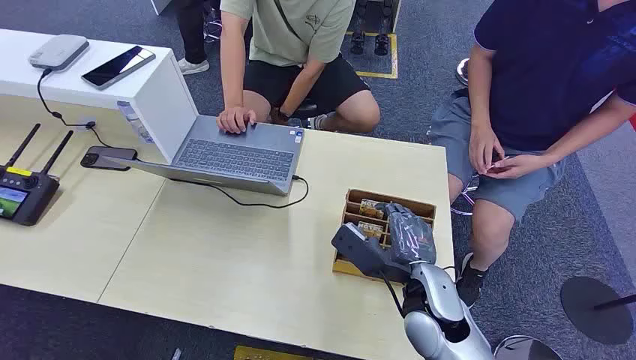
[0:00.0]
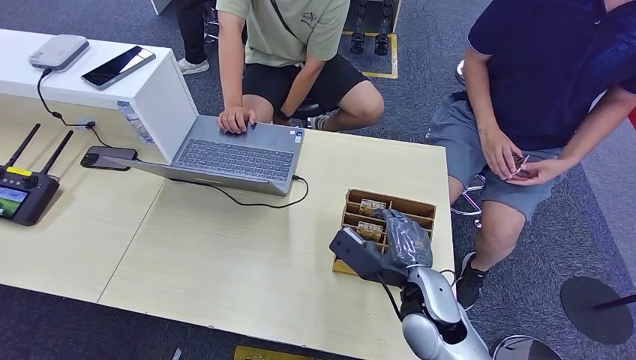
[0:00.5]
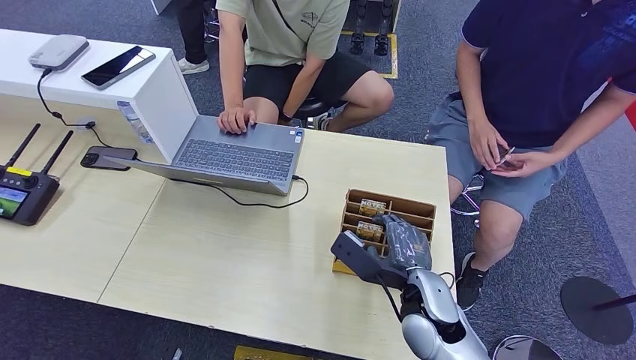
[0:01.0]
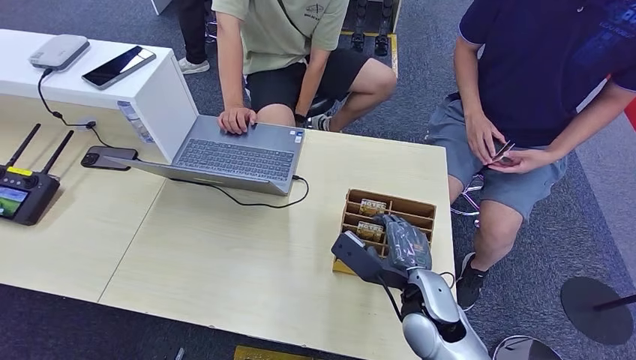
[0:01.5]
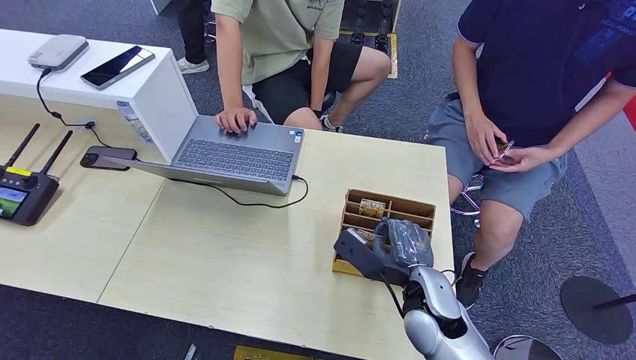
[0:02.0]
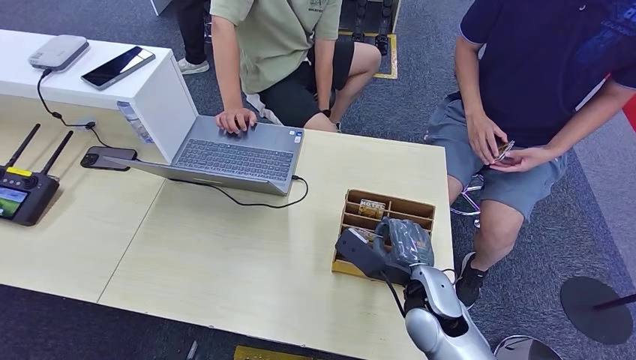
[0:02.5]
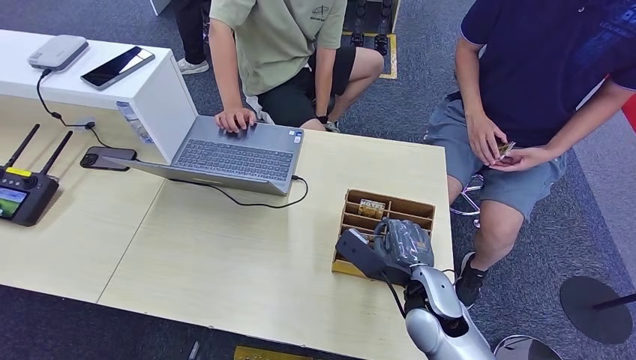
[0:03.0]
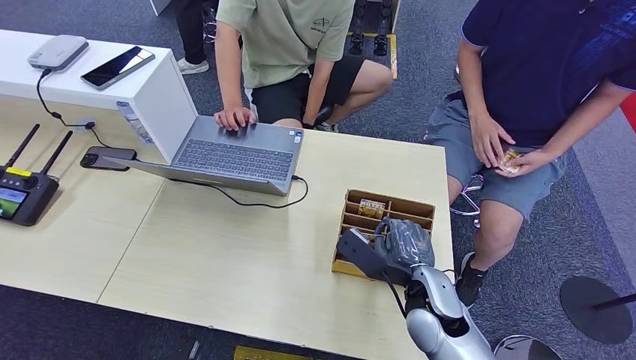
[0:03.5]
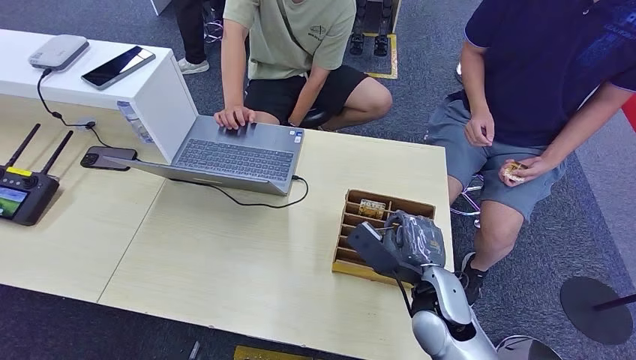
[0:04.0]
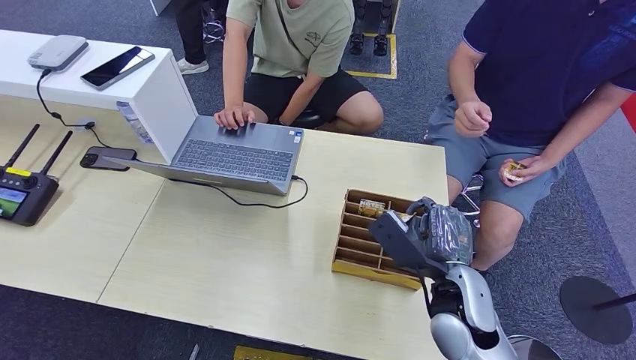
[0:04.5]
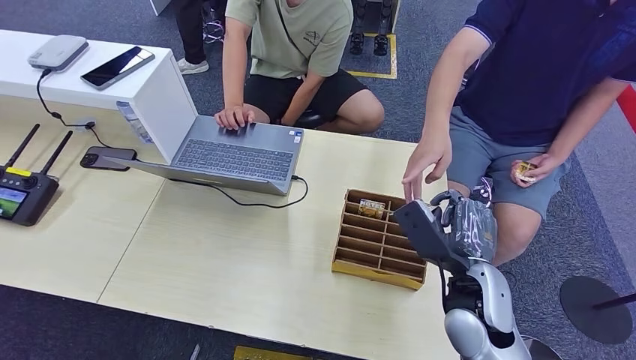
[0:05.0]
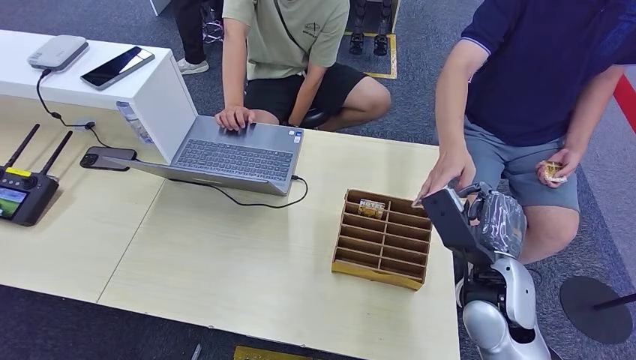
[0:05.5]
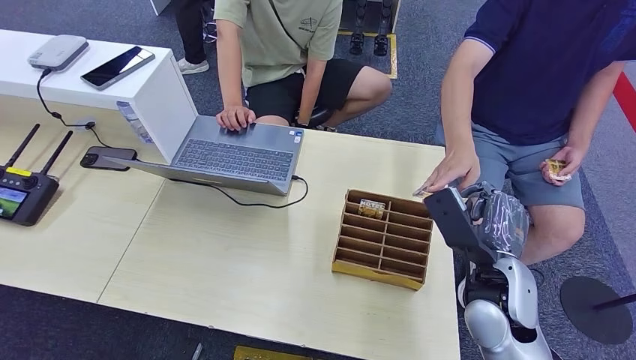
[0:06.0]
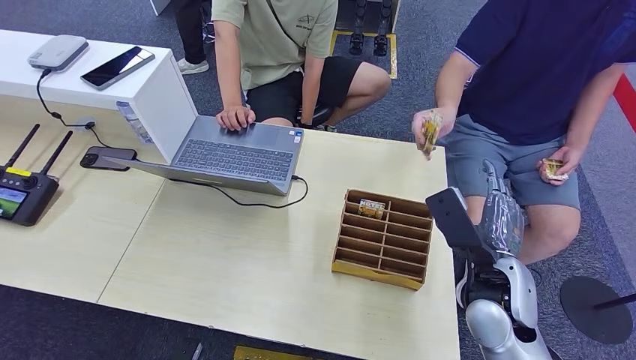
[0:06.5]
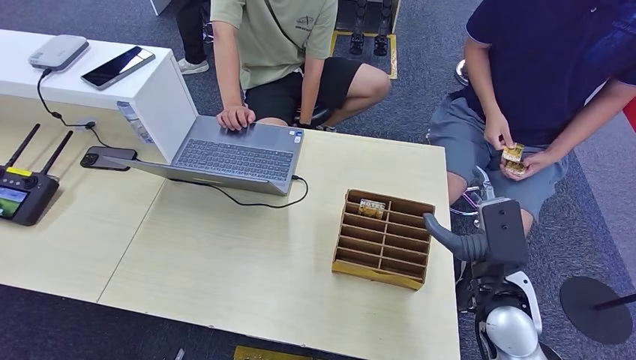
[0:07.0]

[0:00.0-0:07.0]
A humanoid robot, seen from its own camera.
Step, 0:00.0 to 0:04.0: Pick up the key card from the card box.
Step, 0:05.0 to 0:07.0: Hand the key card to the target.
0:02.0 to 0:03.5: The hands make only small movements.
0:03.5 to 0:05.0: The right hand is displaced upward and to the right by some 5 cm.
